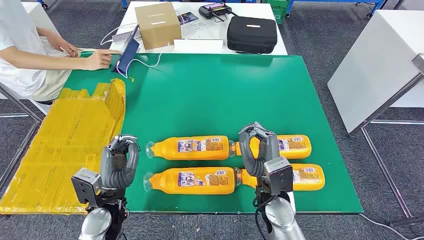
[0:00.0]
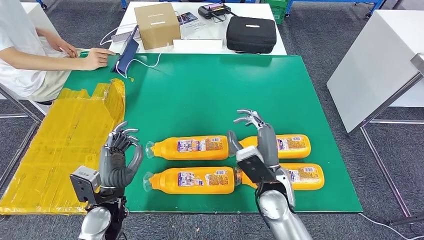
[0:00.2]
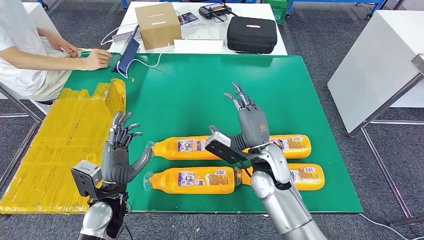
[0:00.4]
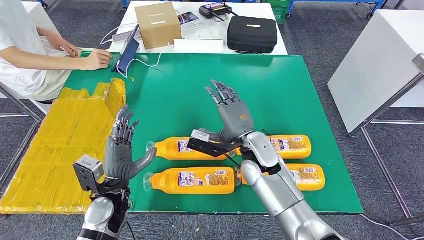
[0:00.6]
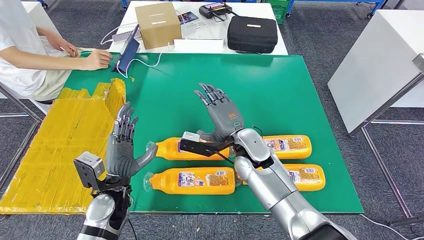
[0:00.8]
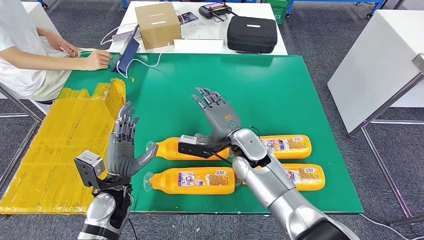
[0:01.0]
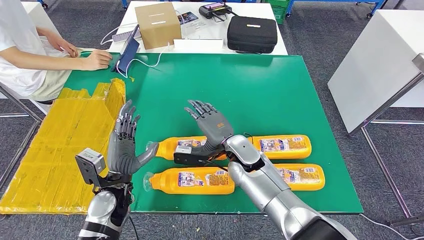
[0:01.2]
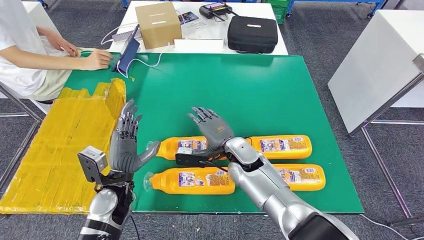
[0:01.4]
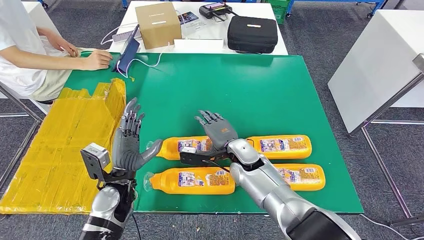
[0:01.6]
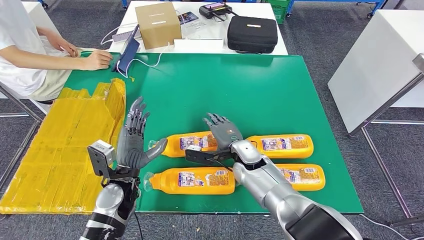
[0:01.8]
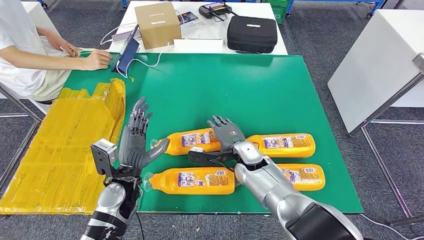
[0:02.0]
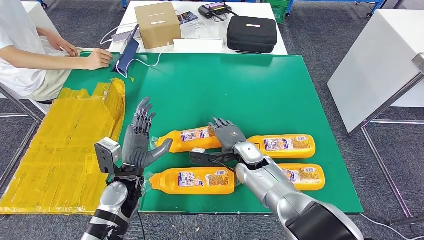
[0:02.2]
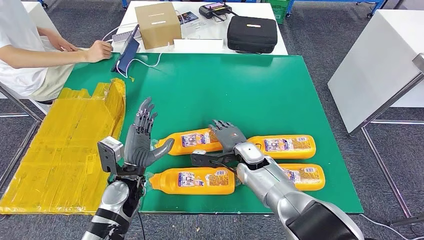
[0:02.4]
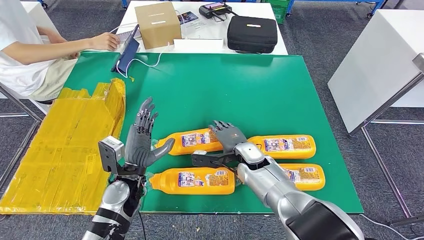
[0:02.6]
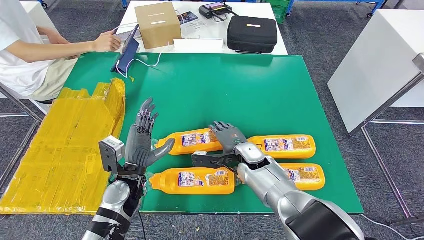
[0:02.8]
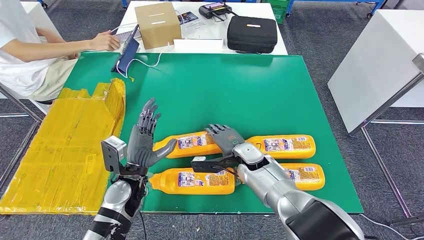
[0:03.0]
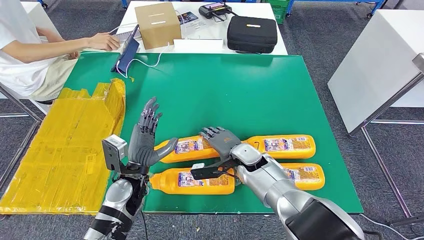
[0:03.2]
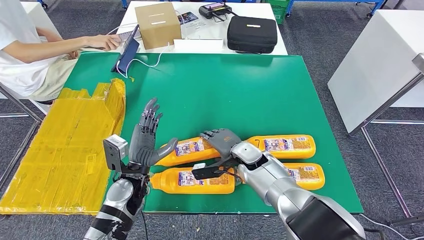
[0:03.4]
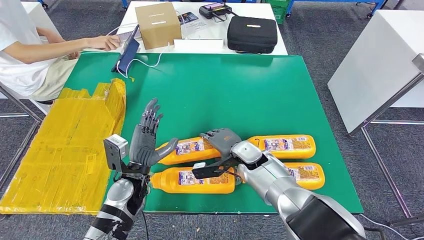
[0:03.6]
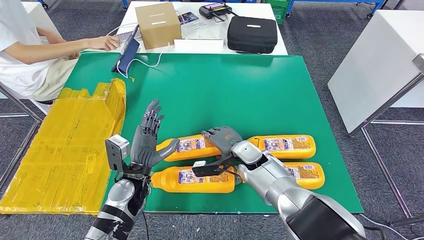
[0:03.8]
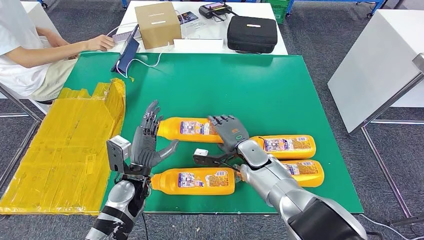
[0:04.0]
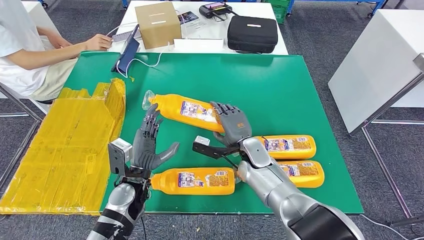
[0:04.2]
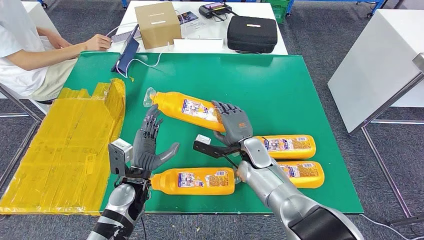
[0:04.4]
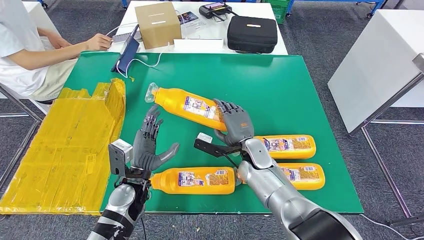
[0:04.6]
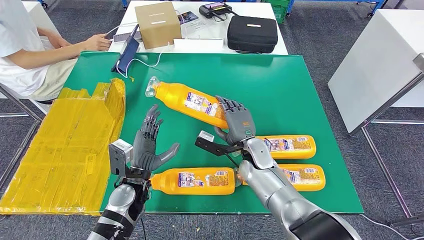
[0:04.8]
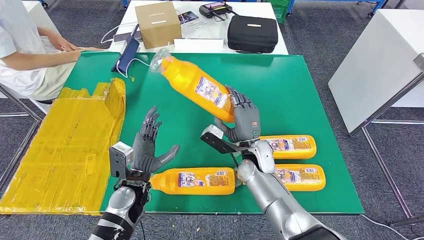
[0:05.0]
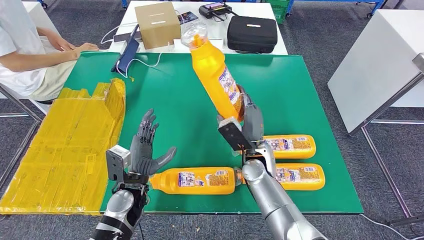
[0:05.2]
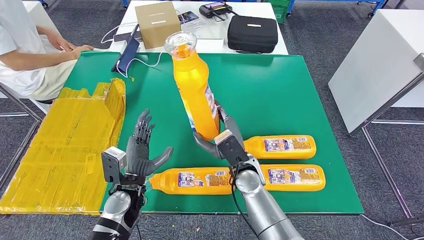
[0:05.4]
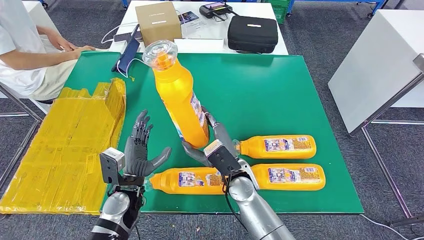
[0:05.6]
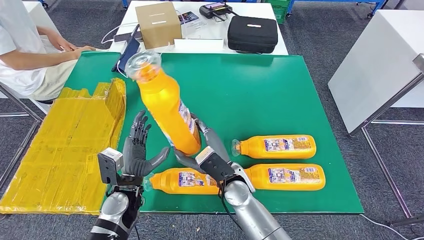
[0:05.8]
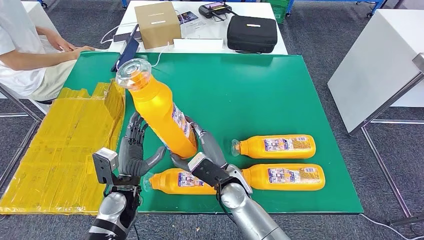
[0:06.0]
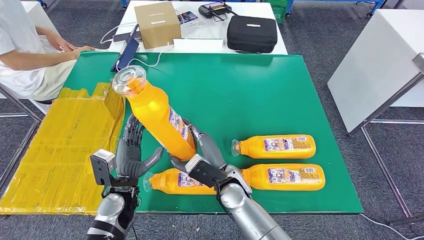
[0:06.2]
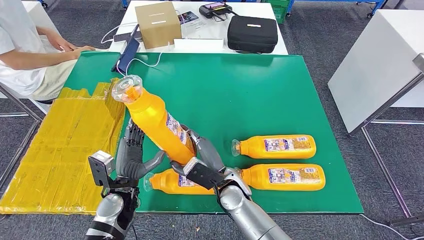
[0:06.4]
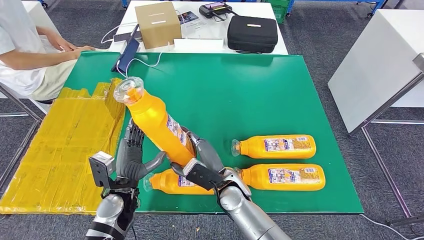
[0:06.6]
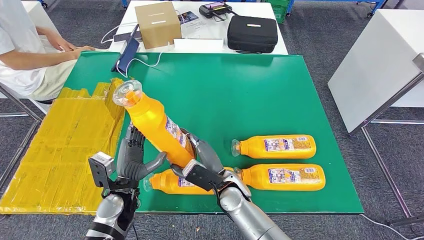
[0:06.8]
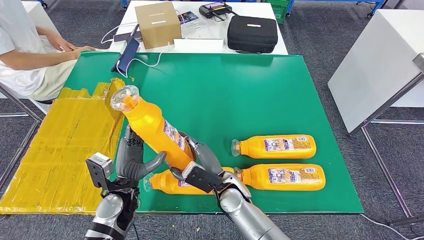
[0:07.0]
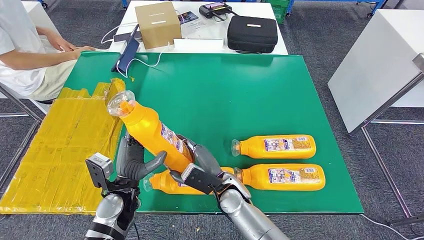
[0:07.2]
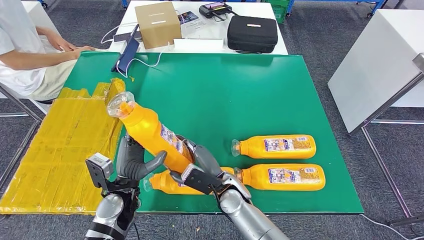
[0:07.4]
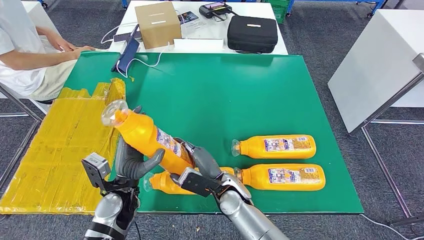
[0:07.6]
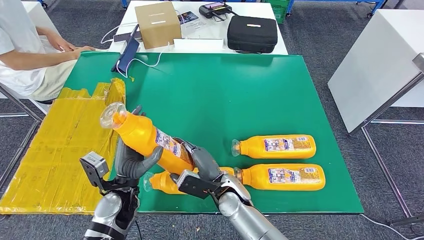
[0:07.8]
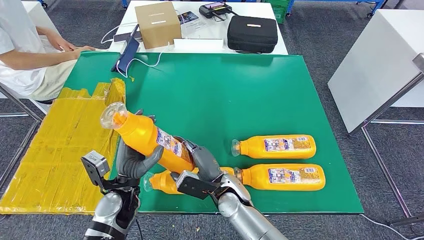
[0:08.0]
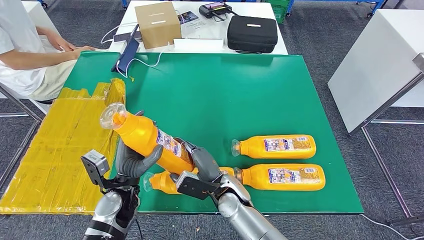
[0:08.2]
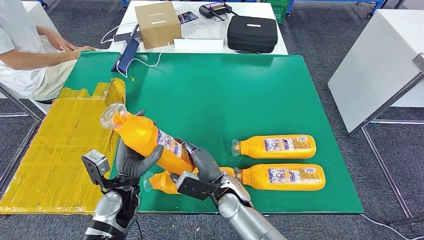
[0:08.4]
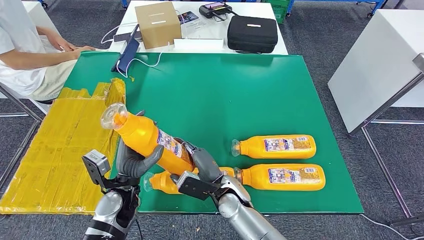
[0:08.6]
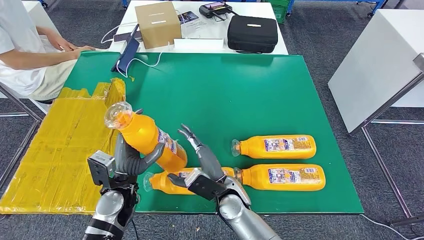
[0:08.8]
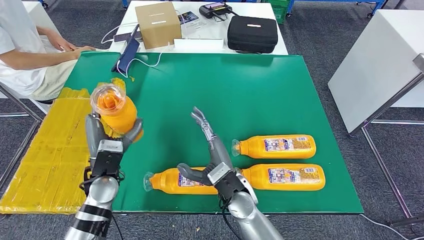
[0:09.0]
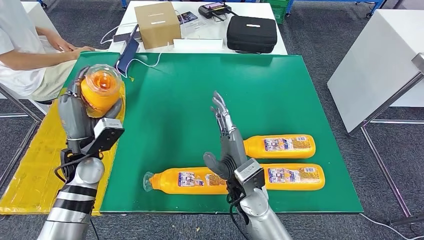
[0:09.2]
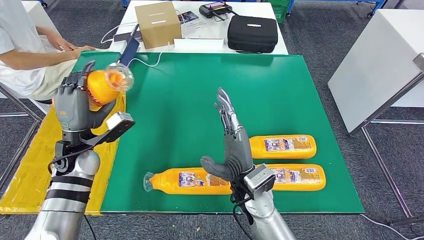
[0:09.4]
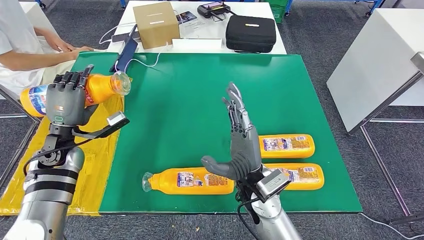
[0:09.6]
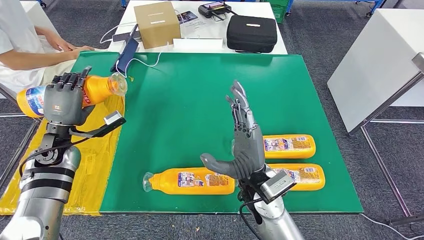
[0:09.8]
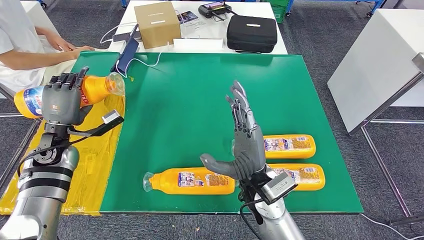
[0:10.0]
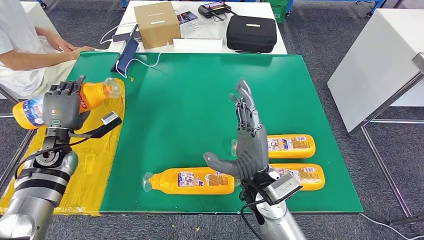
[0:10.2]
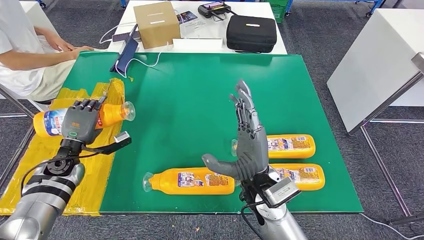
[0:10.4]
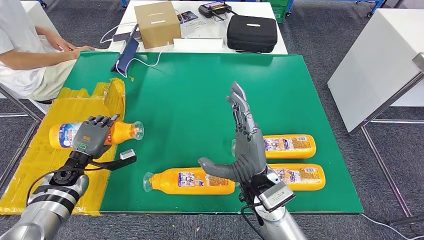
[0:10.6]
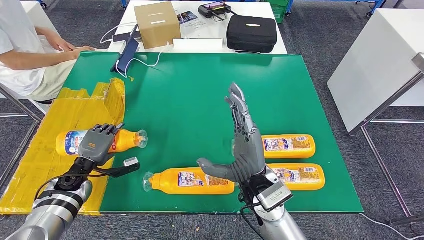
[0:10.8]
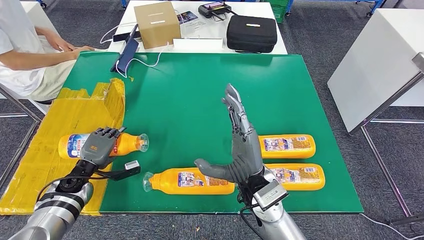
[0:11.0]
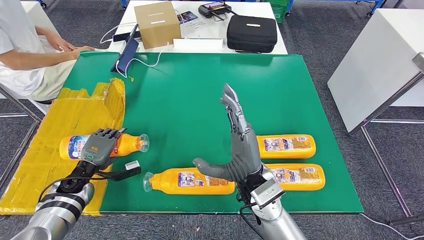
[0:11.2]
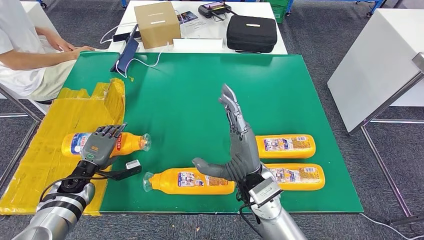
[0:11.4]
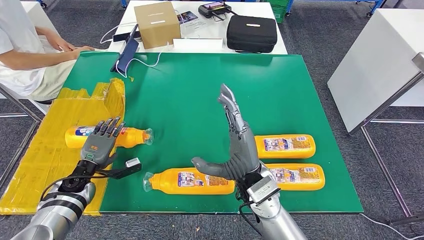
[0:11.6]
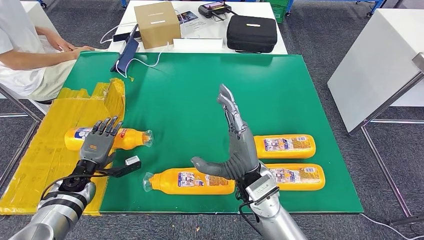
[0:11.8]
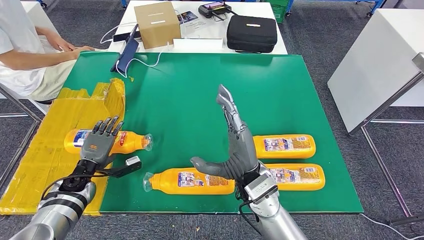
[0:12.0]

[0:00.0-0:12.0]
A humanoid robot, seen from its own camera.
Step, 0:00.0 to 0:08.4: Take the fast-moving consumer goods bottle from the table.
0:01.6 to 0:03.0: The hands stay close to where they were, moving slightly.
0:04.4 to 0:06.0: The right hand heads backward and to the left, covering some 10 cm.
0:06.0 to 0:07.6: There are only small adjustments of the hands.
0:07.6 to 0:09.0: The right hand moves upward, approximately 5 cm; the left hand ends up roughly 5 cm from where it was.
0:10.4 to 0:12.0: The left hand travels downward by some 5 cm.

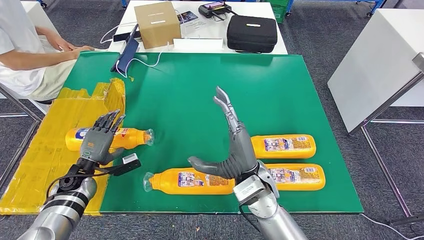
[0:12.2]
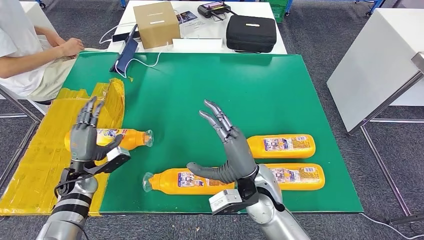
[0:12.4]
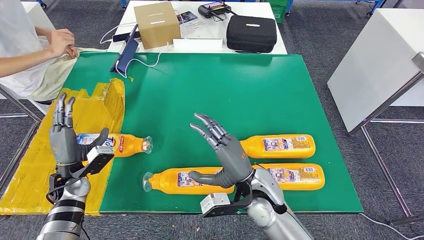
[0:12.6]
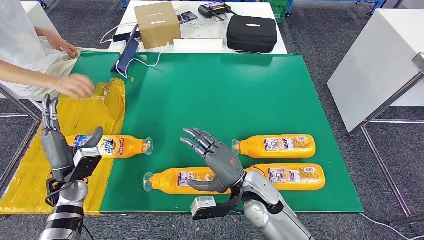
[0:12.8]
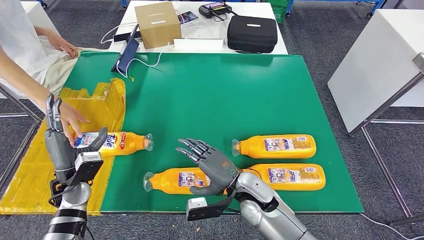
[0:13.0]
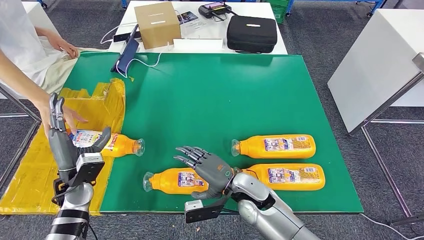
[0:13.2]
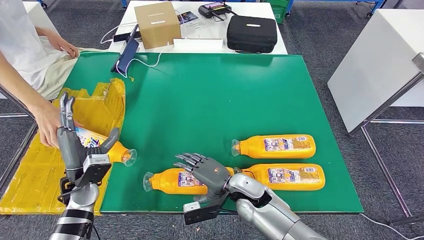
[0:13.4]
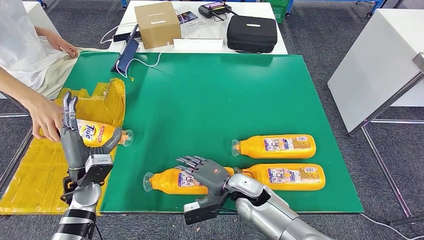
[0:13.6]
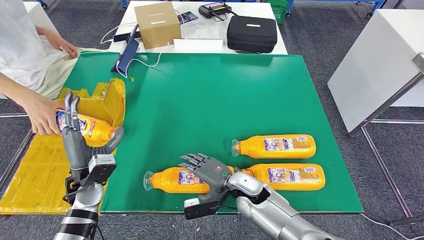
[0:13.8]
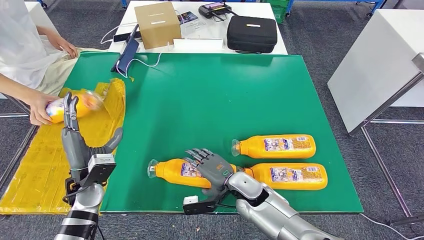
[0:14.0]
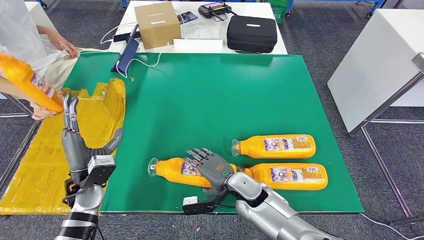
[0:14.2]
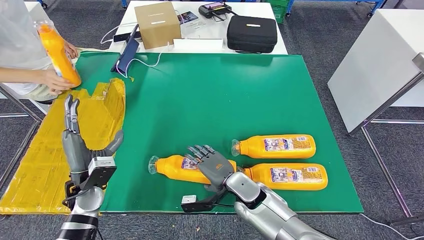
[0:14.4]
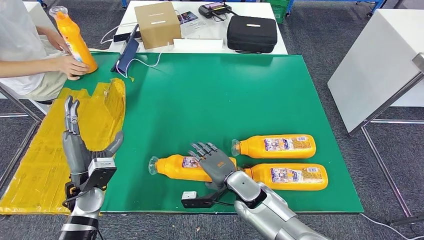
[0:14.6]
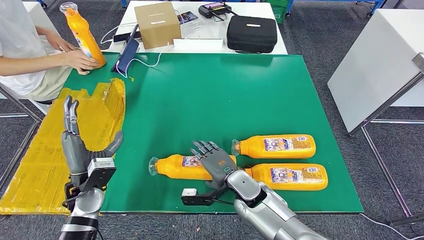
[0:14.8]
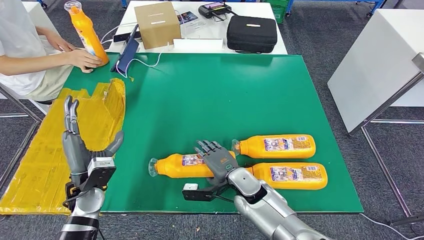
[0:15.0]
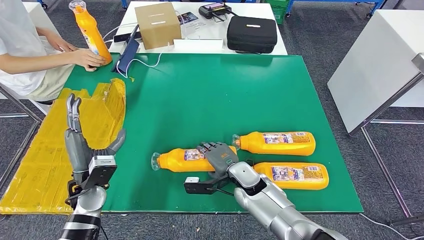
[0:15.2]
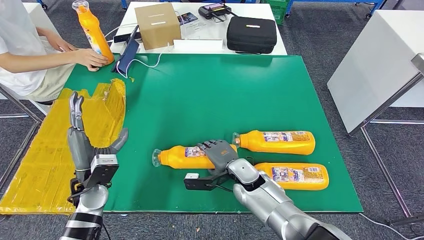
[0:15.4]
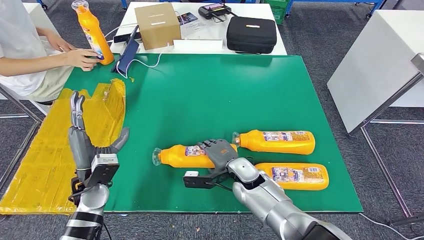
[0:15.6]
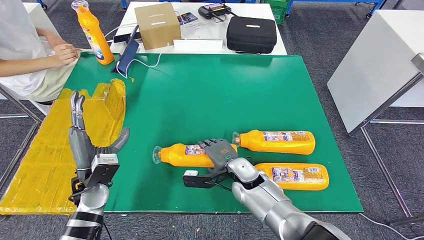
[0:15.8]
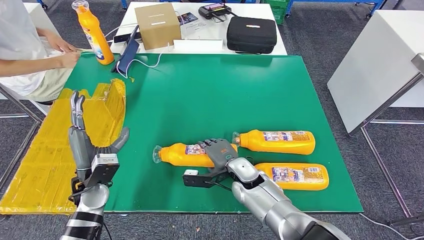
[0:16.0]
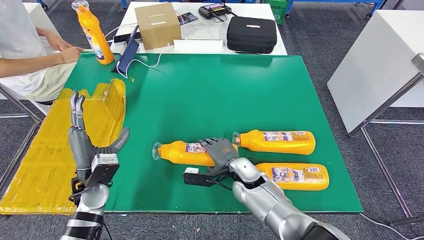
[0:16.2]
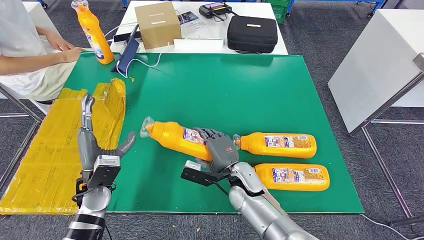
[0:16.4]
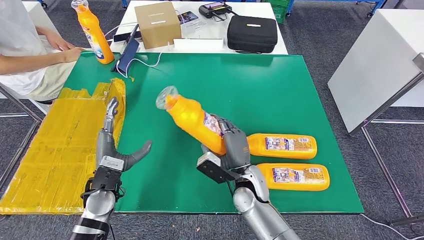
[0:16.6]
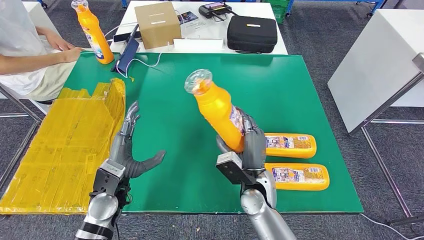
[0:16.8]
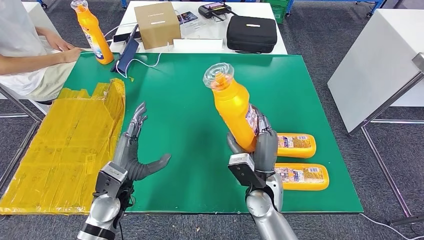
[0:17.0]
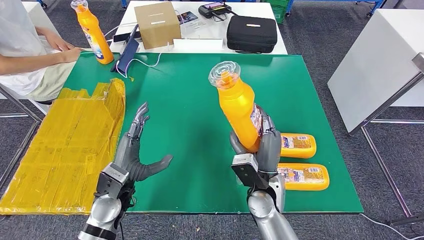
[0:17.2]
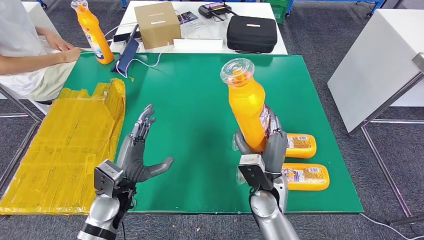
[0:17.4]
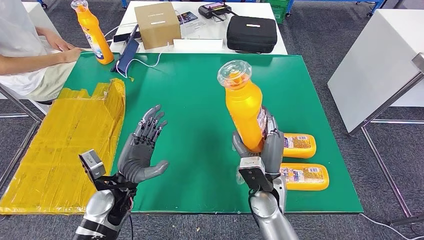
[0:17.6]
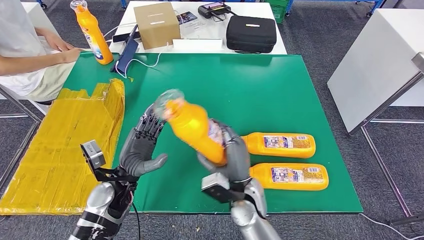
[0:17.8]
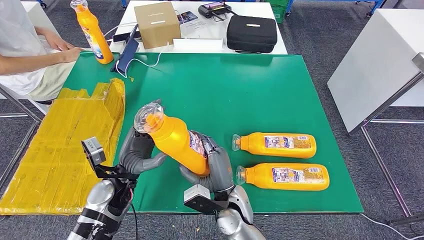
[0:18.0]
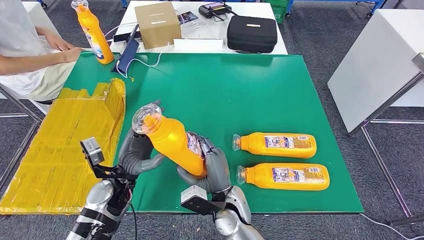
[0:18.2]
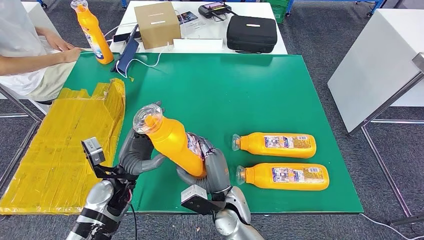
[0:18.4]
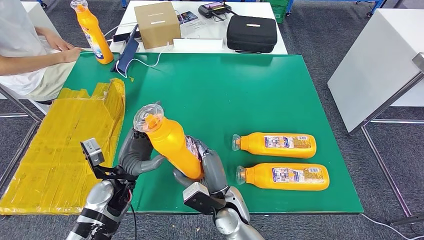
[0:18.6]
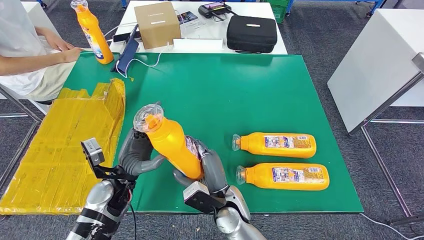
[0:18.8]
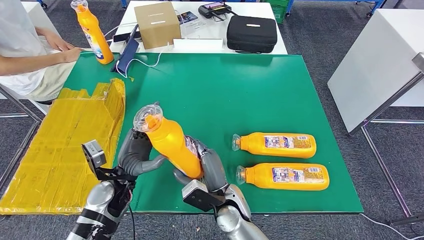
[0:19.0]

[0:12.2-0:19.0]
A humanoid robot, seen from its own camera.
0:12.2 to 0:13.6: The left hand shifts approximately 10 cm to the right and upward, while the right hand travels downward by some 10 cm.
0:15.0 to 0:16.2: There are only small adjustments of the hands.
0:16.2 to 0:17.6: The right hand goes about 10 cm backward and upward. Meanwhile the left hand heads to the right, covering approximately 5 cm.
0:17.6 to 0:19.0: The right hand shifts some 10 cm to the left.
